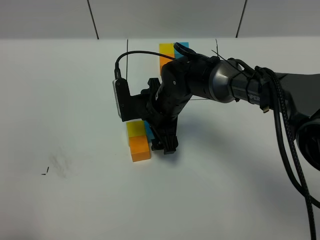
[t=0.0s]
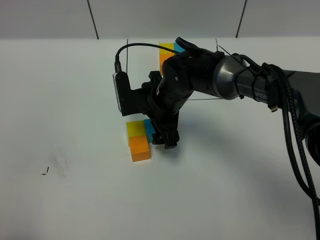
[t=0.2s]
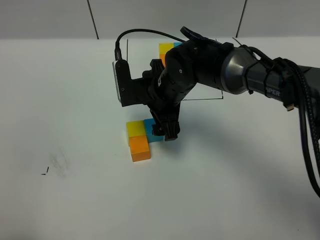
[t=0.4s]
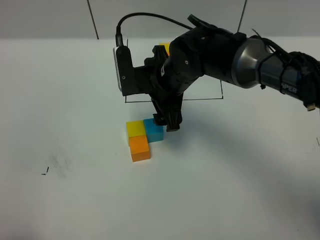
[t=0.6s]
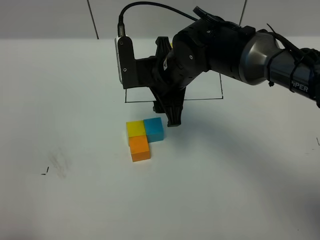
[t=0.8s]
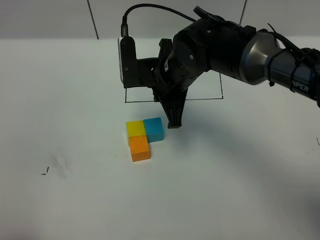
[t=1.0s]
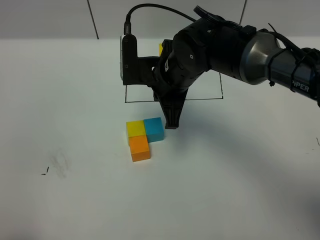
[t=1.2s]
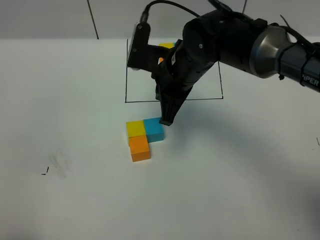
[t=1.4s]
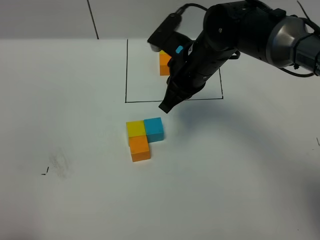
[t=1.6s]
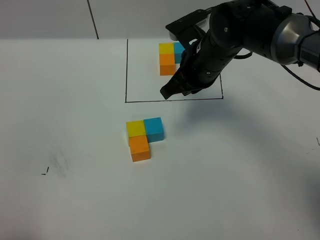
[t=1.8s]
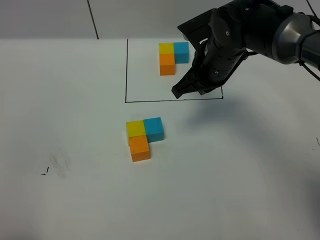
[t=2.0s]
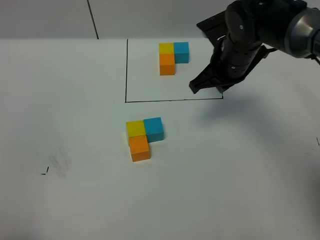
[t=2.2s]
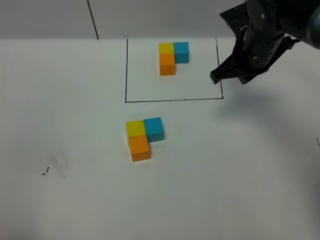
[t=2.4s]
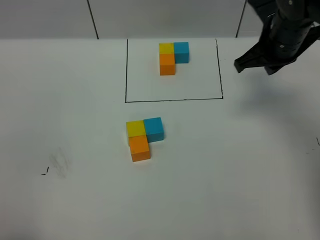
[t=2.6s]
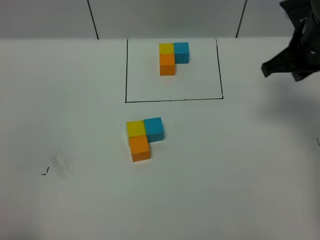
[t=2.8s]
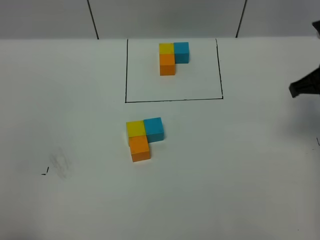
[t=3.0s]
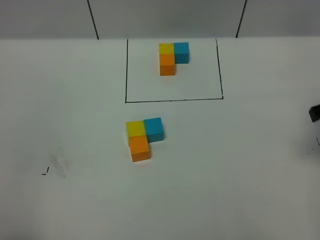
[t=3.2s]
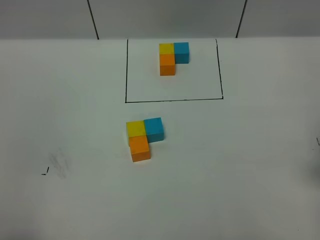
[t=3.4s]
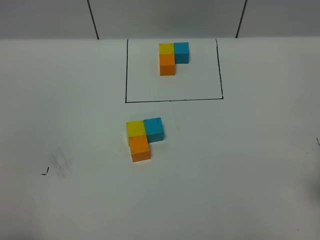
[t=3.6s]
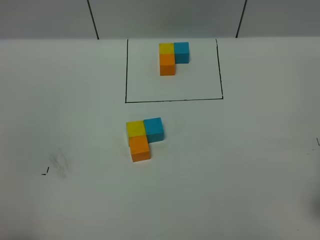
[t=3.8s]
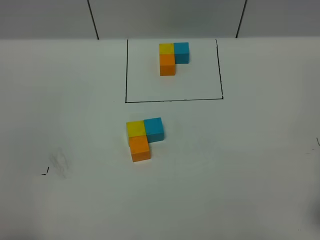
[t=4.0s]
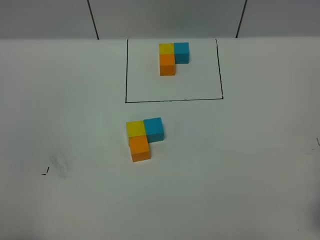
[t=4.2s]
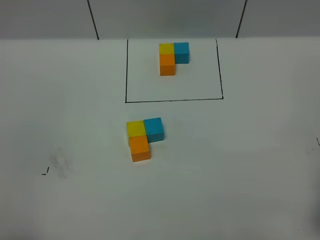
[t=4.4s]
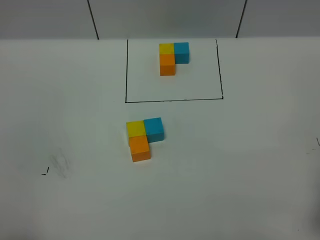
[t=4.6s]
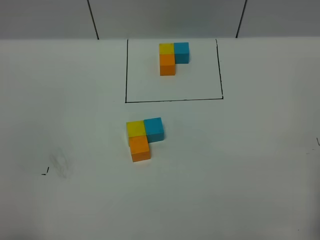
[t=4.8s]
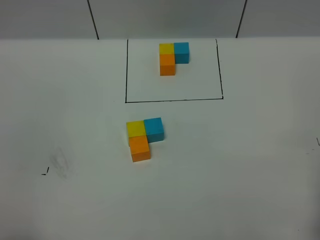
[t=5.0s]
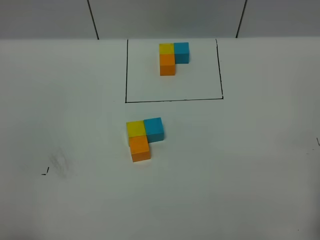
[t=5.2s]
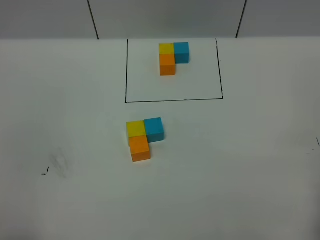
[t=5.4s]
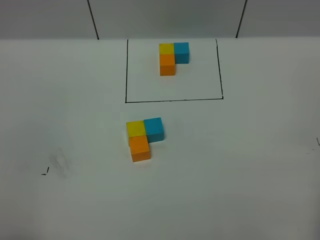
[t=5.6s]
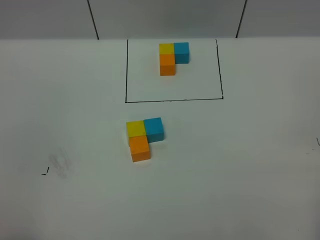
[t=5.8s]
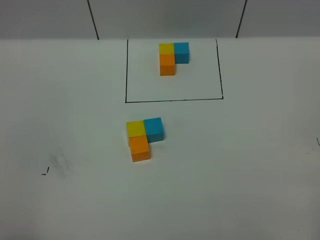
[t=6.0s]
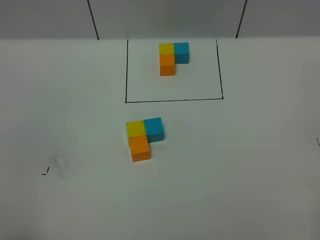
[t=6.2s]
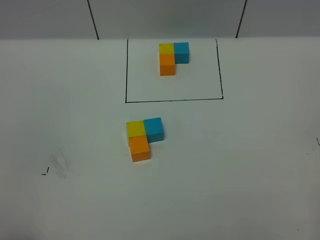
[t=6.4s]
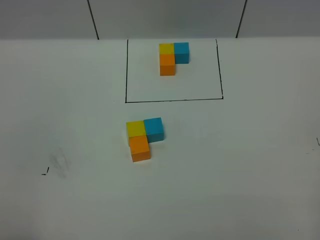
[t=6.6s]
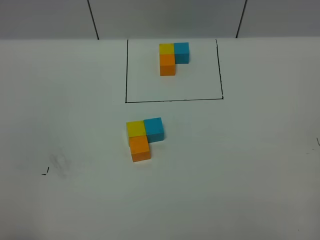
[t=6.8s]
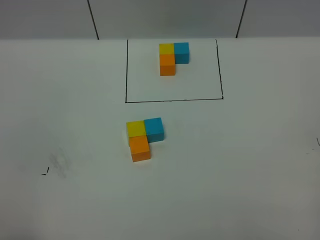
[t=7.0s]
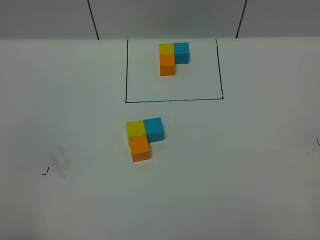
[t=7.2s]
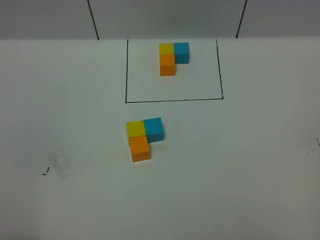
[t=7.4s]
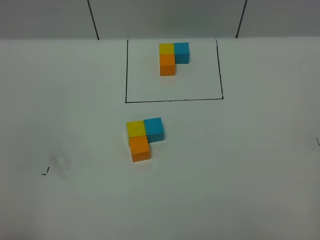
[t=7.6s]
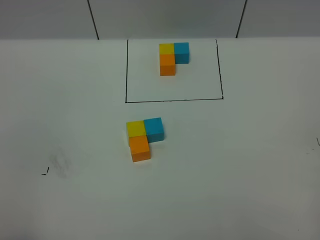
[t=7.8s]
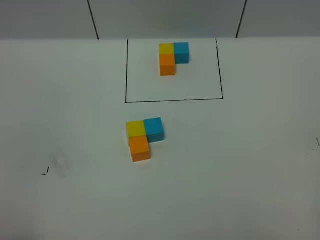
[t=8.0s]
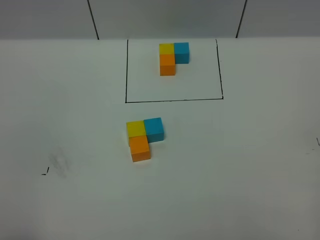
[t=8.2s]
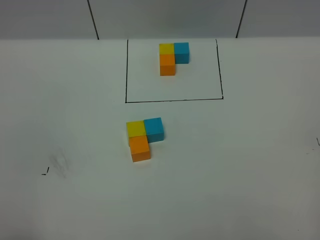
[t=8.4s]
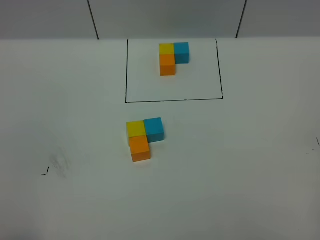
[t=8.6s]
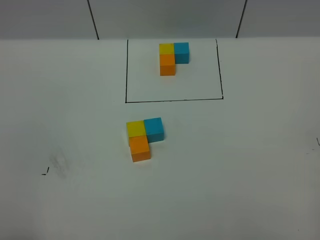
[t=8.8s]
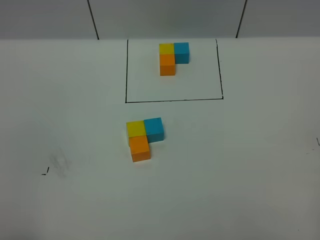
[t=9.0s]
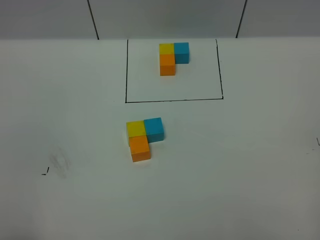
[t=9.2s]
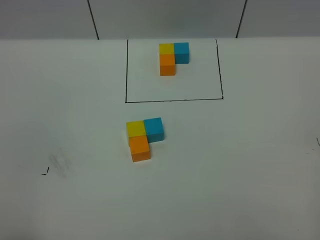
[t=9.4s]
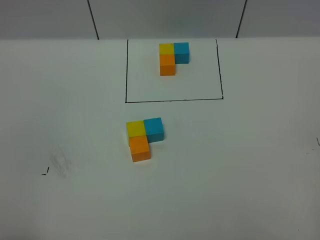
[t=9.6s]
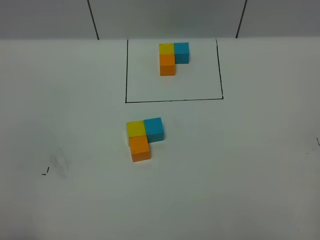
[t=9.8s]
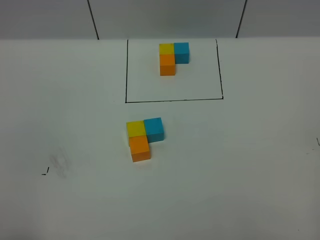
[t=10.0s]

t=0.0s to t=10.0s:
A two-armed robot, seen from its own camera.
Task of the whole recording: According to the building block template in front, assemble the scattered blocks together.
t=0.0s to t=1.4s: The right gripper heads upward, covering about 10 cm, and closes up.
t=1.4s to t=2.8s: The right gripper moves to the right, about 20 cm.
t=2.8s to t=4.2s: The right gripper shifts some 20 cm backward.
t=7.2s to t=10.0s: Neither gripper changes place.
